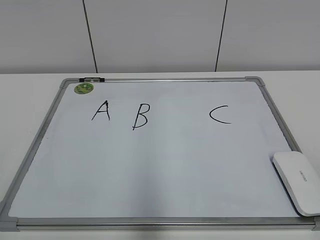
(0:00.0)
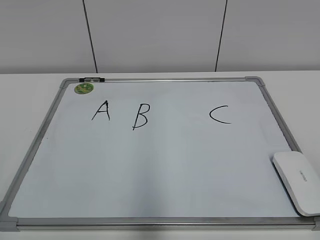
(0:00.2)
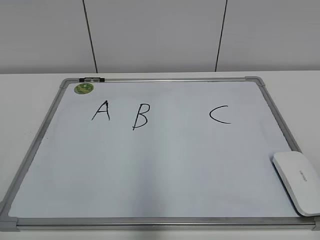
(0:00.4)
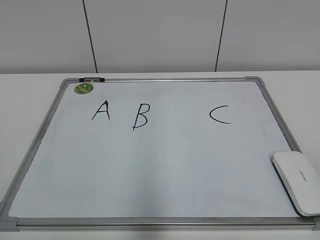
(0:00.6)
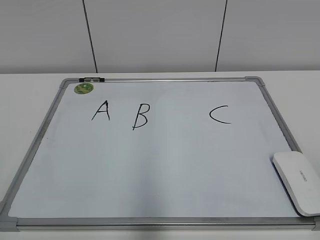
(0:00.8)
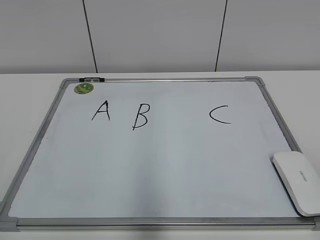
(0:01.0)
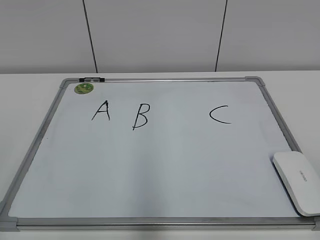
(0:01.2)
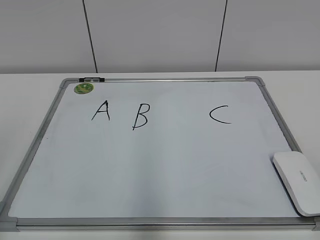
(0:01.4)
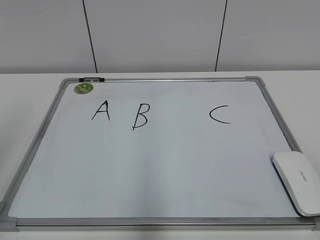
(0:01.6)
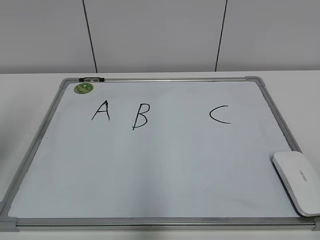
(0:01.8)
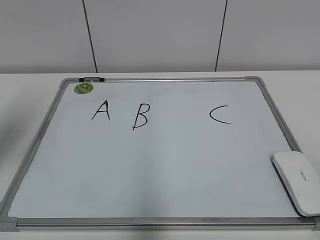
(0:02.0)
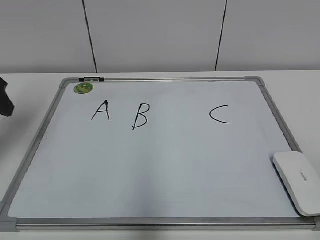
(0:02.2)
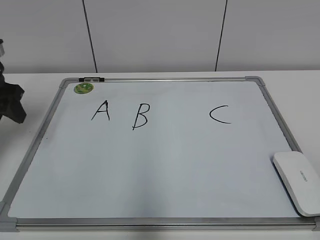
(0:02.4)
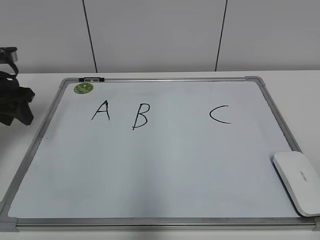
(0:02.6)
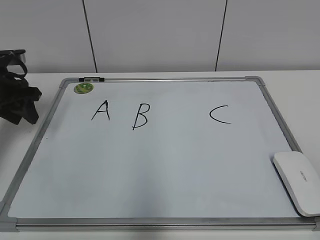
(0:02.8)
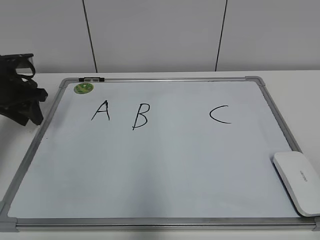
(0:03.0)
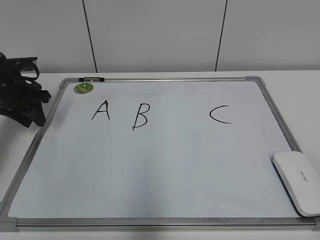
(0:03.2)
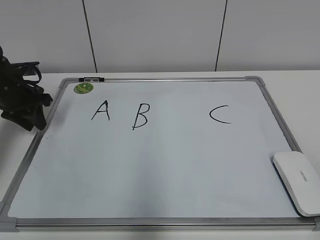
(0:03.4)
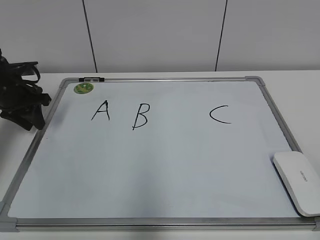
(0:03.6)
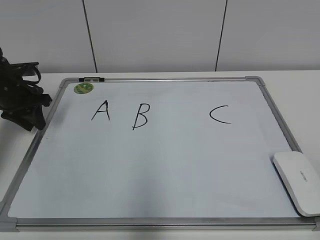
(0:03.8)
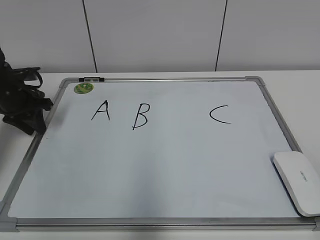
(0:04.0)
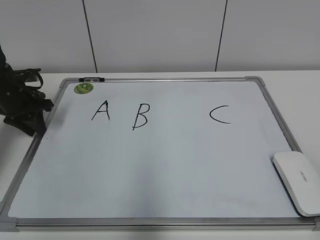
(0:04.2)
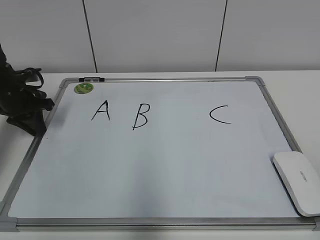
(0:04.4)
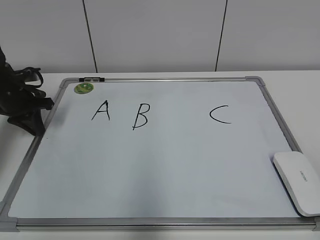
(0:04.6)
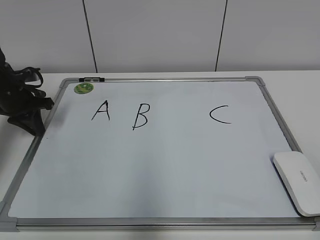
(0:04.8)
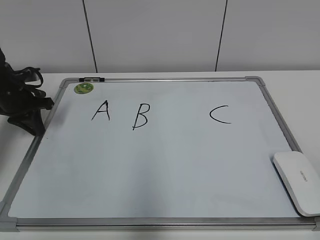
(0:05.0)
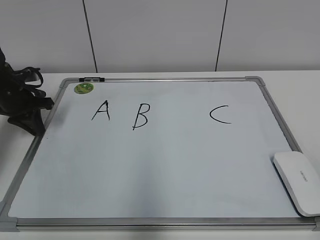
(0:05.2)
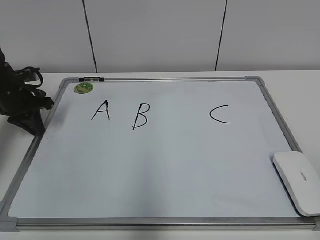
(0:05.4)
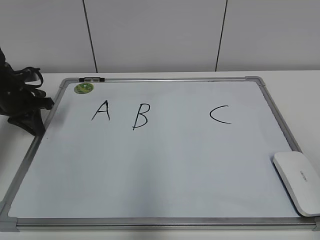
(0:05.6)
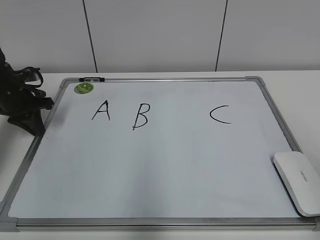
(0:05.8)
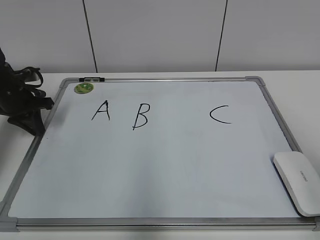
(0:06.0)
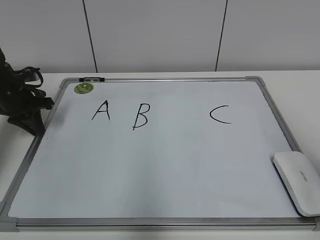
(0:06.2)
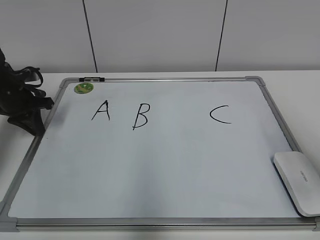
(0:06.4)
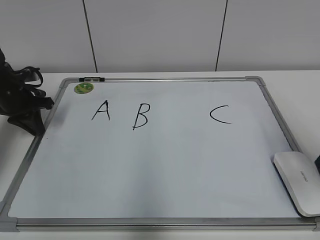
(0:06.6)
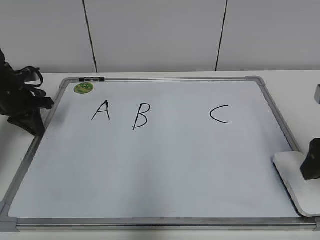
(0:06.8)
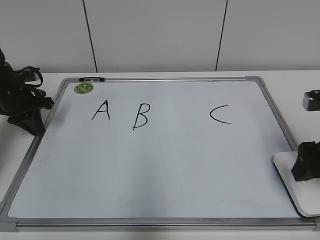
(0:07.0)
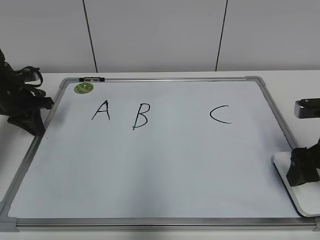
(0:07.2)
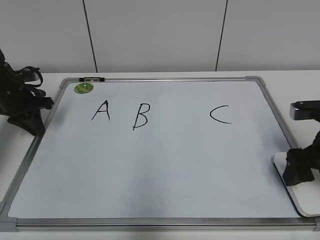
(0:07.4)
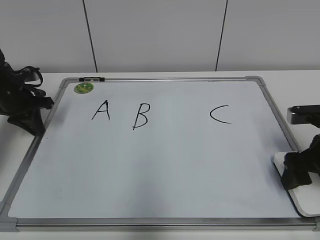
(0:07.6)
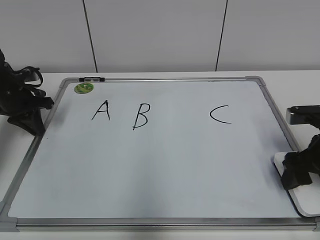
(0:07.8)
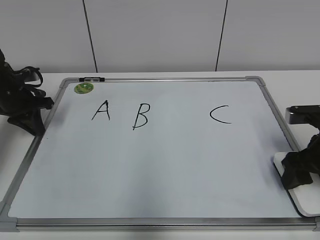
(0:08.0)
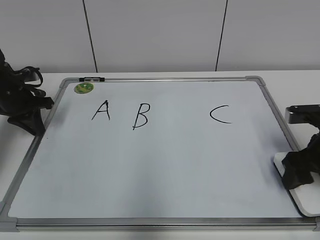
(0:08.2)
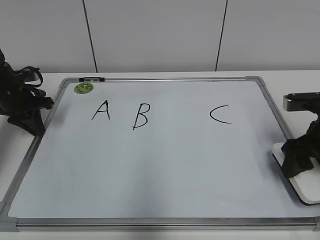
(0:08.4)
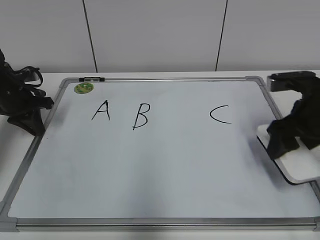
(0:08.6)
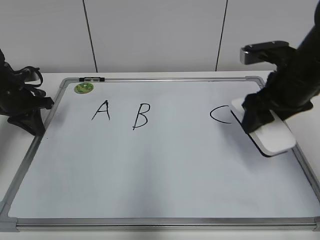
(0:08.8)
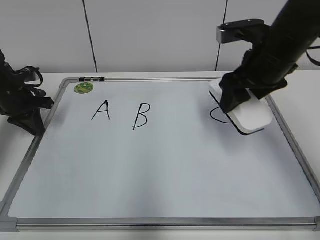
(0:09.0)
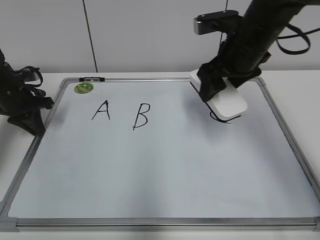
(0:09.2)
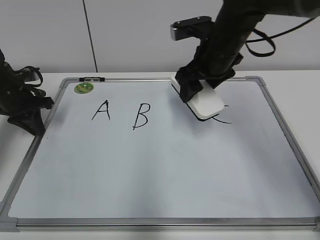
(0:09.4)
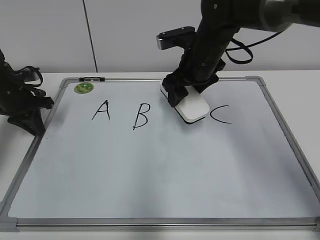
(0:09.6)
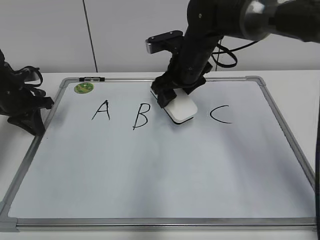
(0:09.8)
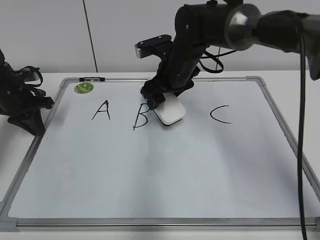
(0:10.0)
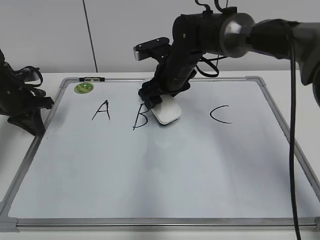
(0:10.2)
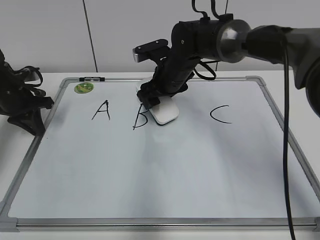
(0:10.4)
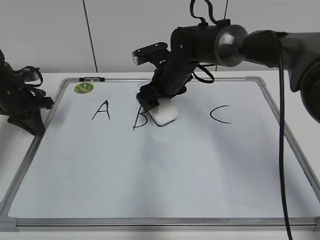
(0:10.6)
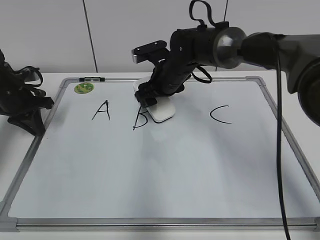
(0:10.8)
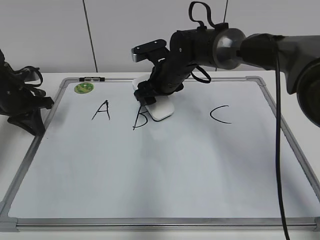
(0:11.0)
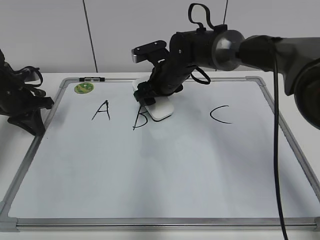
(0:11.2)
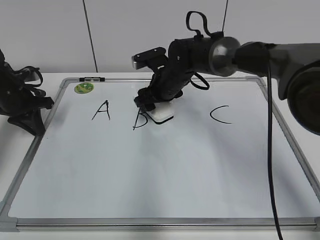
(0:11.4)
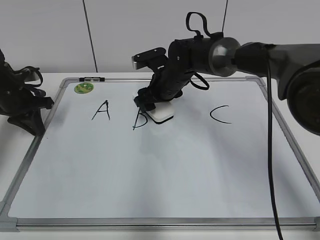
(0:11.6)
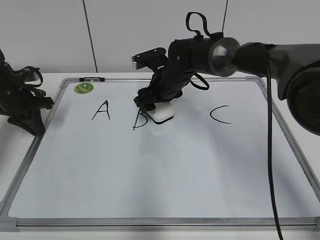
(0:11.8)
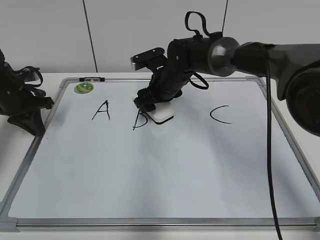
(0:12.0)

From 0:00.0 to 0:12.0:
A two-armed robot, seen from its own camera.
Task of the whole recording: pick up the eraser on the blackboard and erase the letter "B".
Step, from 0:00.0 to 0:04.6: Hold the drawing board steady with your left hand.
Step, from 0:04.8 to 0:07.8: Grab the eraser with your right hand.
From 0:01.6 to 0:03.0: The left gripper shifts approximately 35 cm forward and downward, and closes up.
From 0:03.0 to 0:04.4: The grippers stay close to where they were, moving slightly.
From 0:06.0 to 0:07.6: The right gripper goes roughly 25 cm forward and downward, and opens up.
From 0:07.6 to 0:09.0: The right gripper travels upward, to the left and forward by roughly 15 cm, and closes its fingers.
From 0:09.0 to 0:10.4: The right gripper heads to the left, forward and downward, covering approximately 20 cm.
From 0:10.4 to 0:12.0: The grippers stay close to where they were, moving slightly.

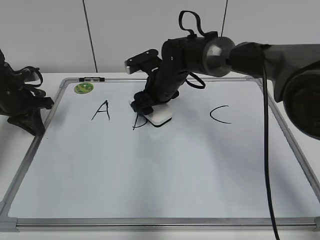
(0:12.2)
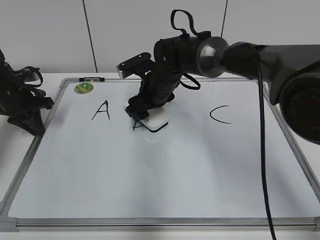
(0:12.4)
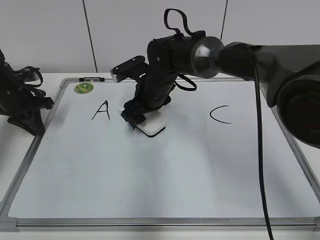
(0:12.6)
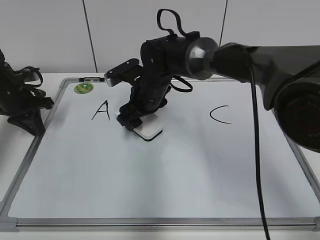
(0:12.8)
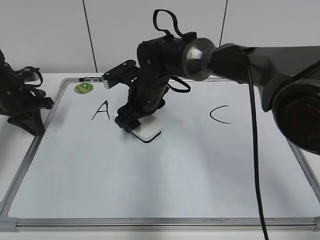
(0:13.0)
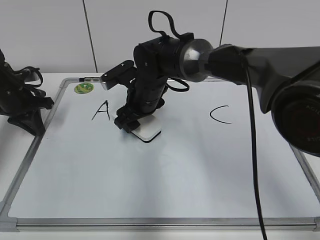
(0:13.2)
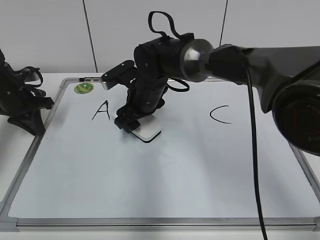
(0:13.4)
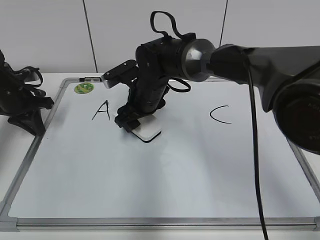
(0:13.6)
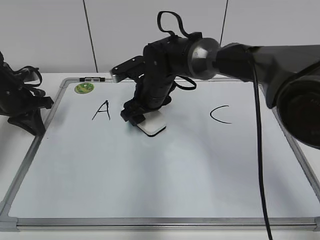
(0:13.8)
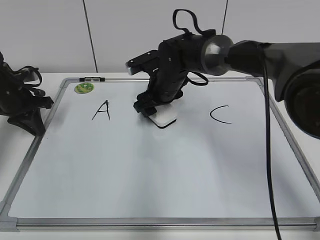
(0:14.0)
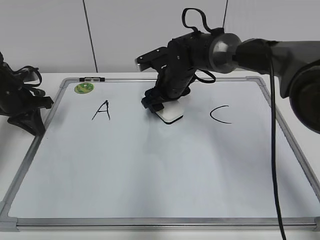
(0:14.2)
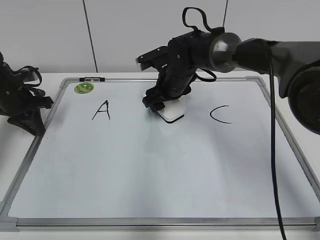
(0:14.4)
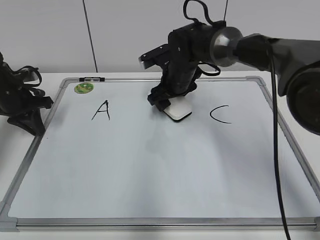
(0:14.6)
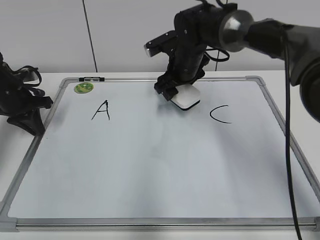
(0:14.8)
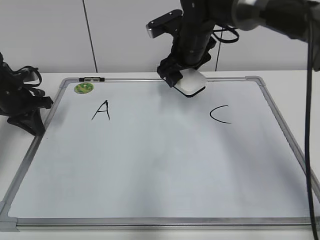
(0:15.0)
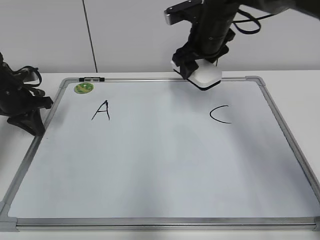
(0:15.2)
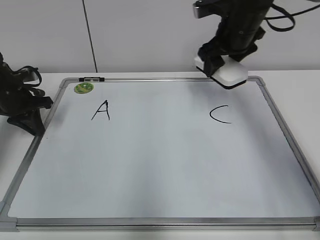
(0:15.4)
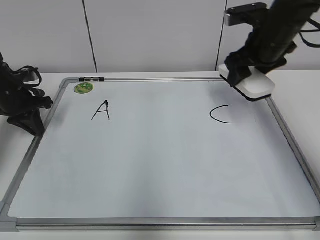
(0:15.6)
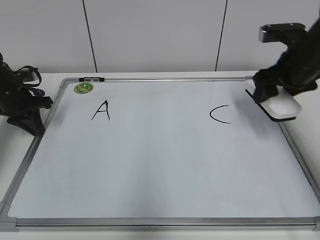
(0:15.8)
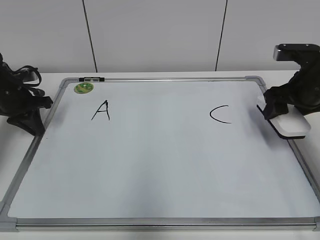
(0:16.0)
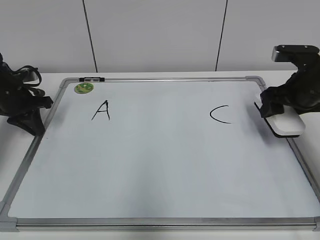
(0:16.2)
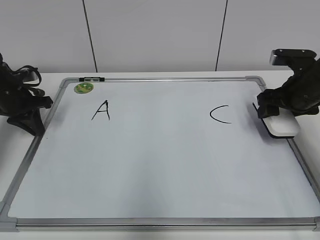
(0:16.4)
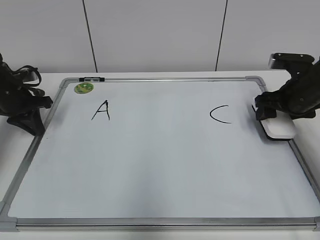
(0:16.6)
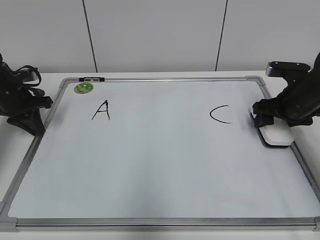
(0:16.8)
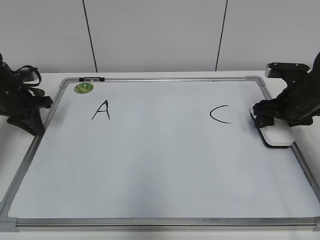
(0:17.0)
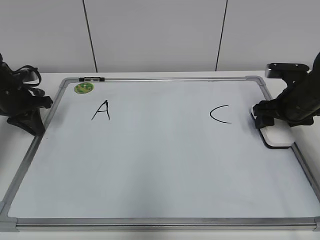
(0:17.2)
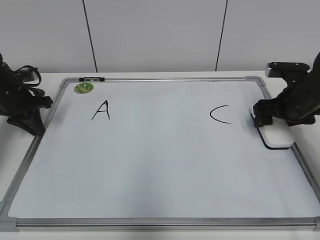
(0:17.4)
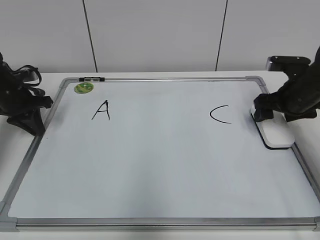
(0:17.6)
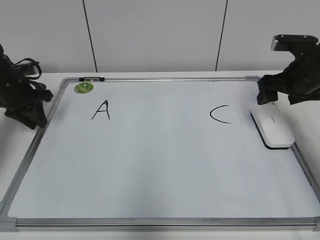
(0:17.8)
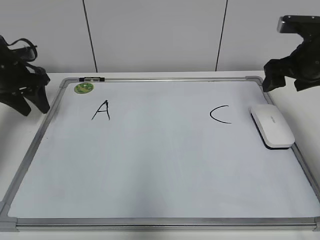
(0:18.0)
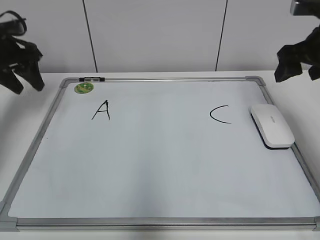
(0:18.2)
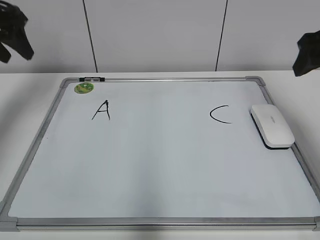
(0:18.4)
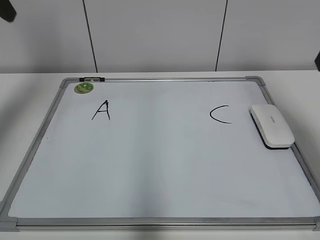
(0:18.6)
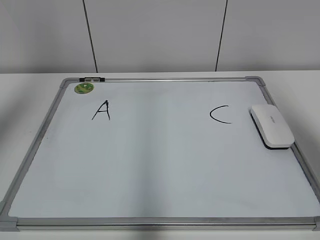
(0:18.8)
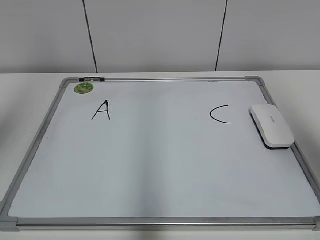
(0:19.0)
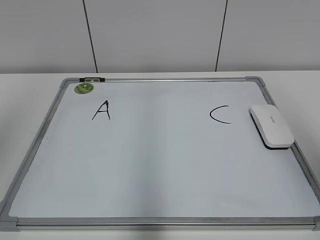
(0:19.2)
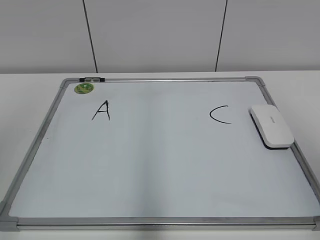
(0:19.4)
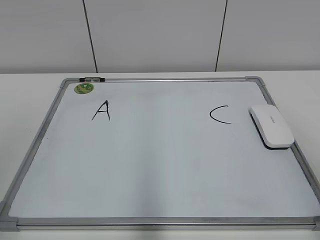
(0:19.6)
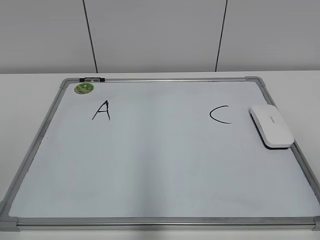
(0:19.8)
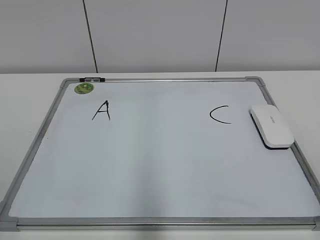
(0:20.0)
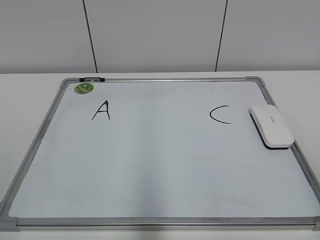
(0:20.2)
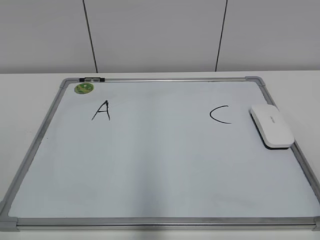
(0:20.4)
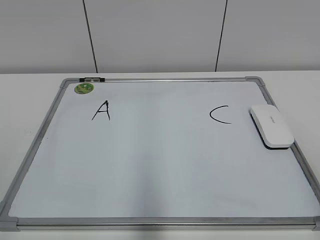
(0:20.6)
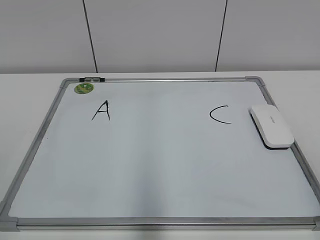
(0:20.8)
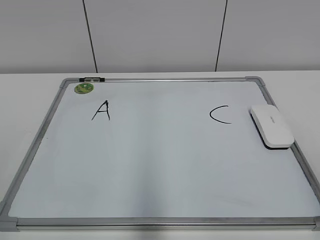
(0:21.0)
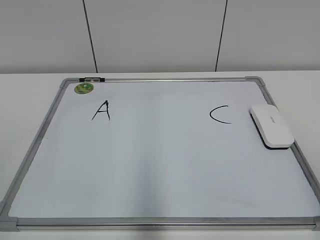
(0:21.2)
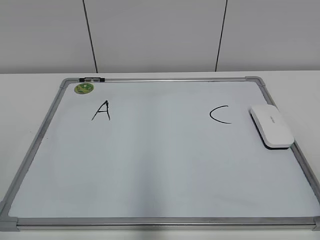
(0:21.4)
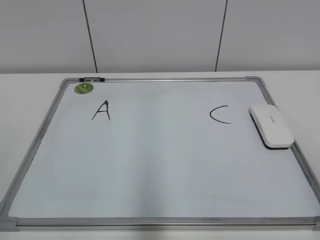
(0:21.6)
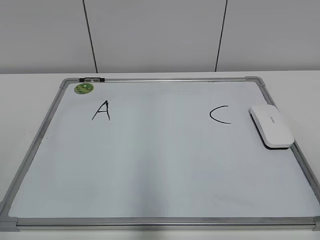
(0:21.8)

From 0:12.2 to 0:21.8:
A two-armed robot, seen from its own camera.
Task of the whole recording: pick up the eraser on the blackboard and erase the letter "B".
Step, from 0:12.2 to 0:14.4: Erase the letter B with your right hand.
Step, from 0:14.6 to 0:17.2: Put down the eraser with your right hand.
From 0:12.2 to 0:13.8: The grippers move only a little.
From 0:13.8 to 0:15.4: The right gripper heads to the right and upward, covering approximately 20 cm.
From 0:15.4 to 0:17.0: The right gripper goes approximately 20 cm to the right, downward and backward.
From 0:17.0 to 0:18.6: The left gripper goes about 25 cm upward, and opens, while the right gripper heads upward and backward, covering about 20 cm, and opens.
From 0:18.6 to 0:20.2: Both grippers travel together backward, about 30 cm.
